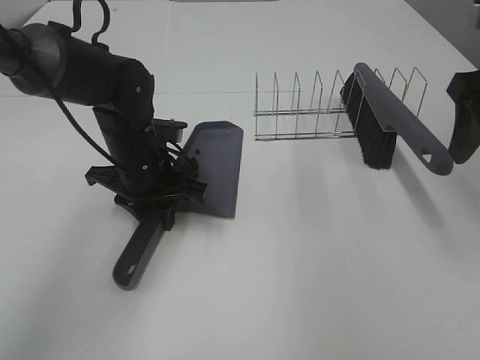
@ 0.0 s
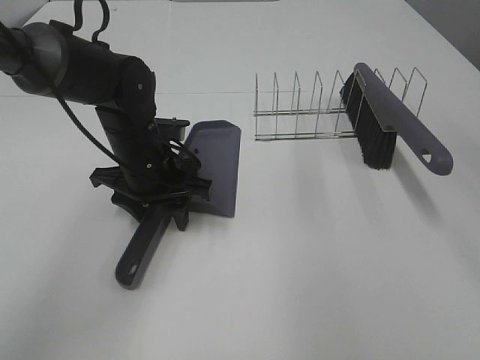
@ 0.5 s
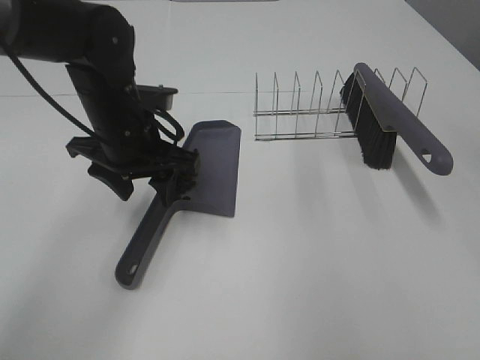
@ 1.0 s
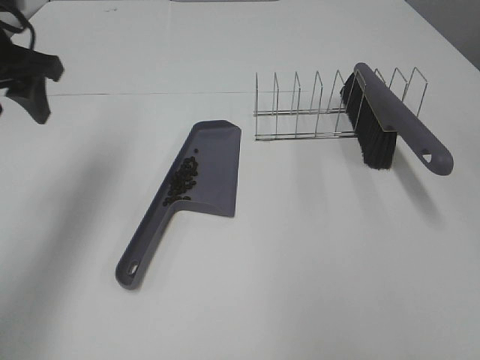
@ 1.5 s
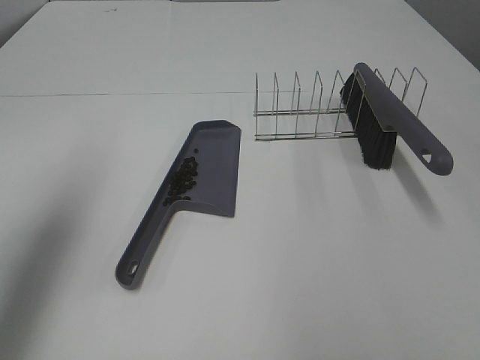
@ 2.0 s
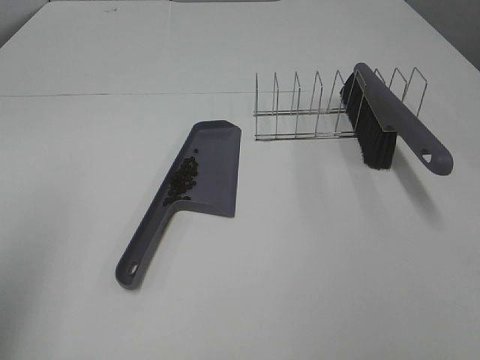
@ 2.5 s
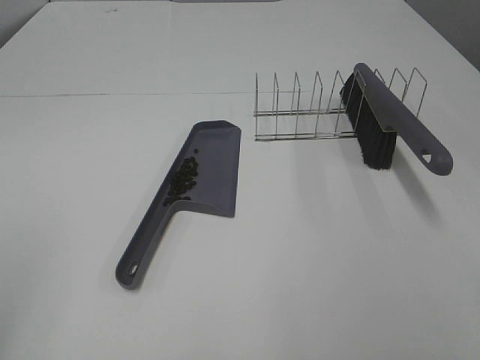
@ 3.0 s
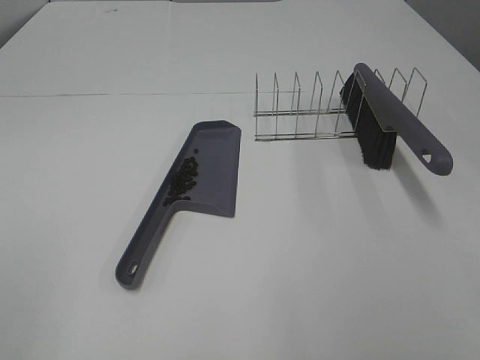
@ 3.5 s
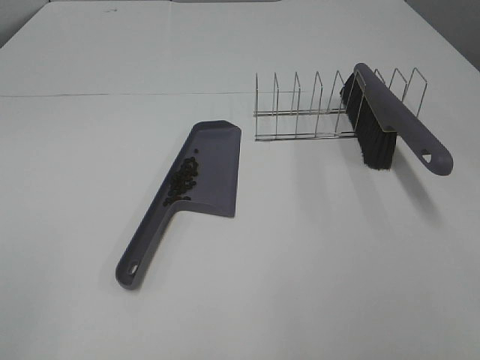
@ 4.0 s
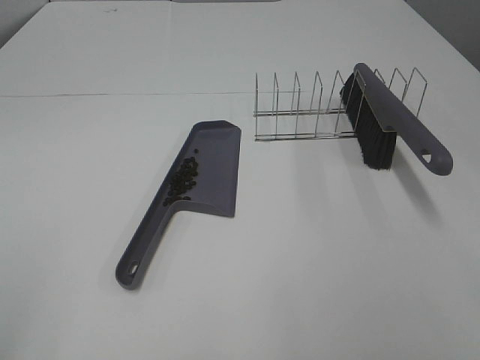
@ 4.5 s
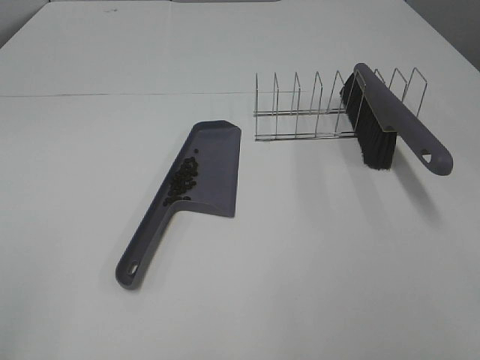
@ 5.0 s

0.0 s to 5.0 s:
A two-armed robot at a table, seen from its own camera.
Task of the whole recording: Sweep Coffee Bean.
0.0 to 2.5 s: The left gripper shifts roughly 40 cm backward, upward and to the left, and opens its fingers. The right gripper travels backward by some 25 cm.
2.5 to 5.0 s: The left gripper shifts some 10 cm backward.

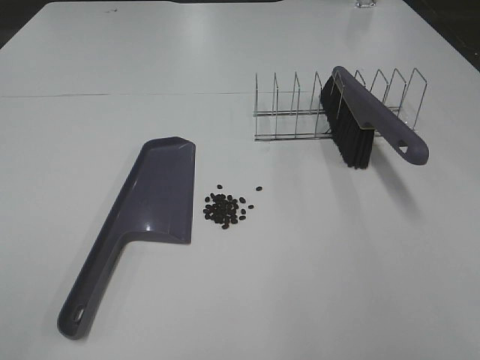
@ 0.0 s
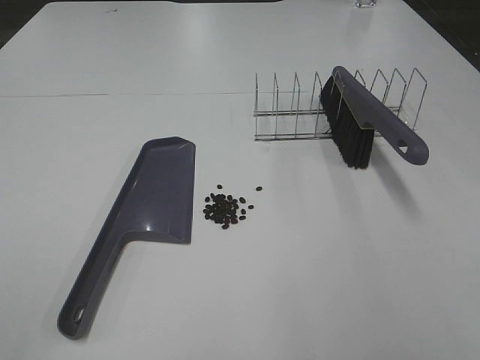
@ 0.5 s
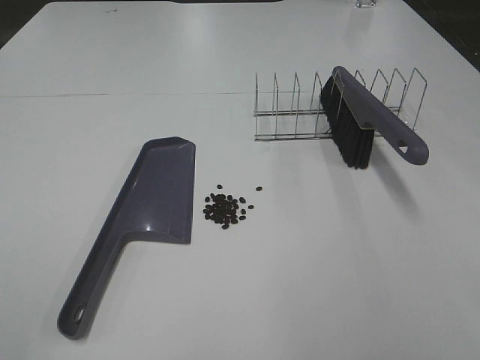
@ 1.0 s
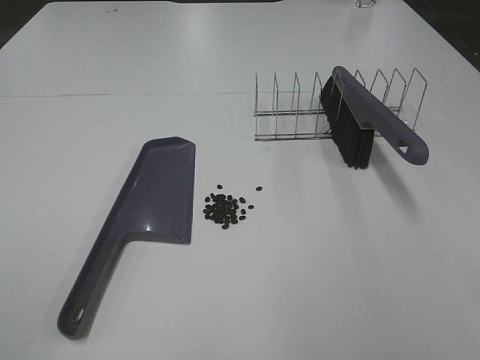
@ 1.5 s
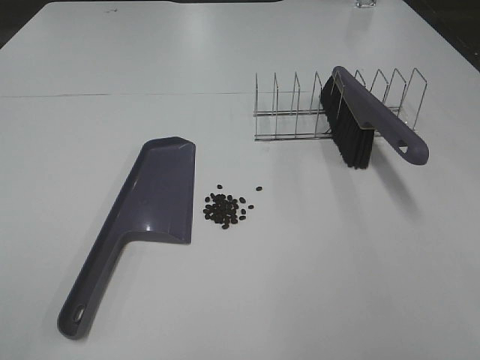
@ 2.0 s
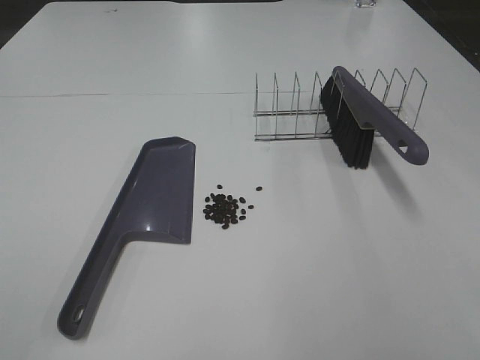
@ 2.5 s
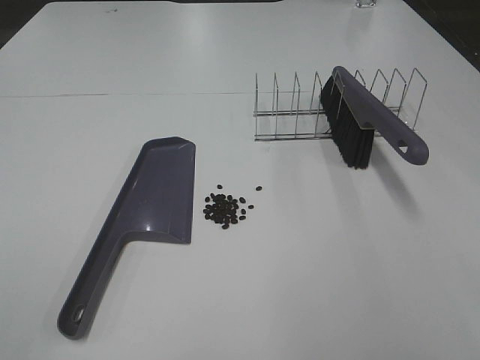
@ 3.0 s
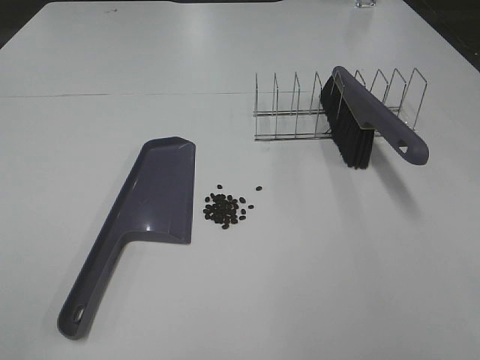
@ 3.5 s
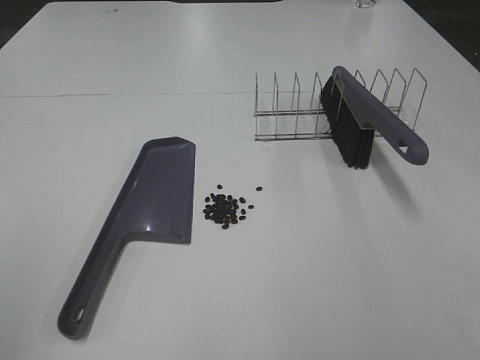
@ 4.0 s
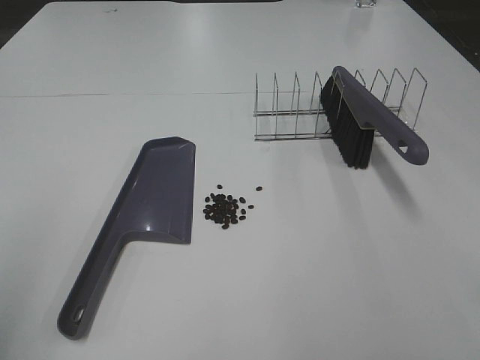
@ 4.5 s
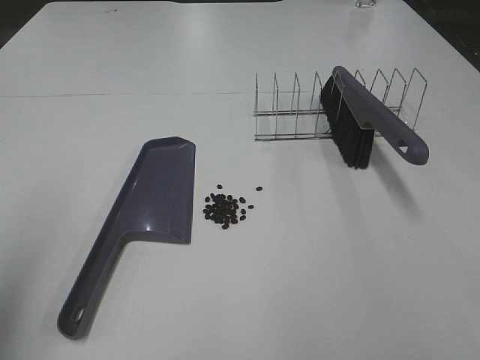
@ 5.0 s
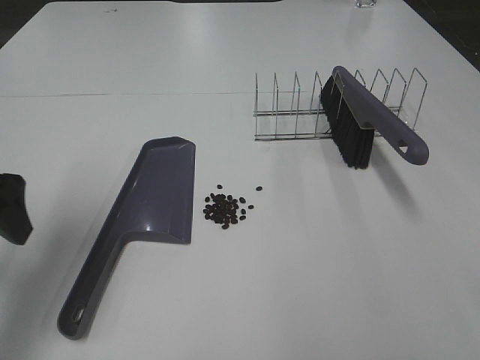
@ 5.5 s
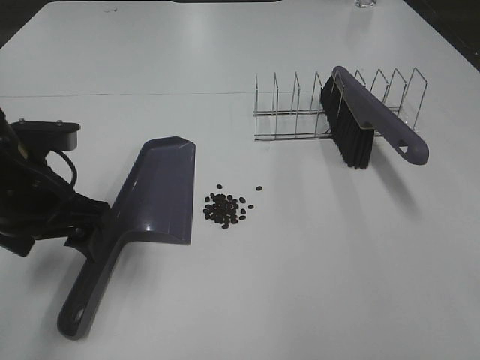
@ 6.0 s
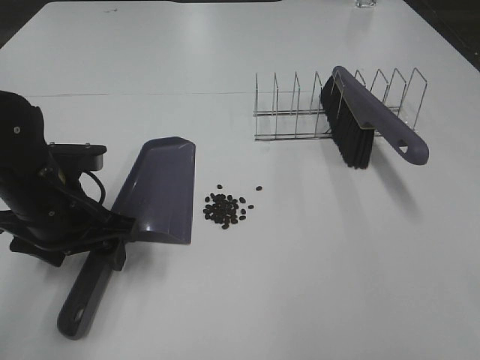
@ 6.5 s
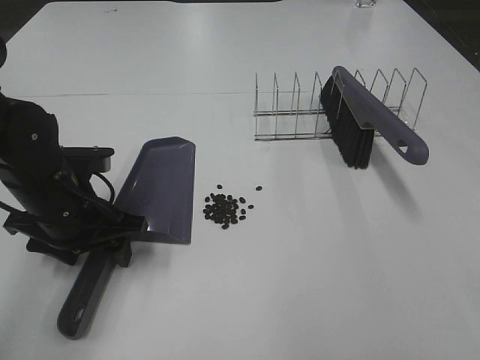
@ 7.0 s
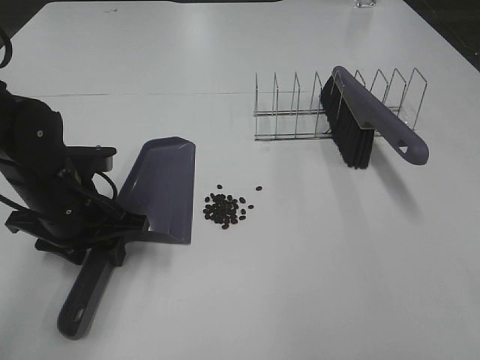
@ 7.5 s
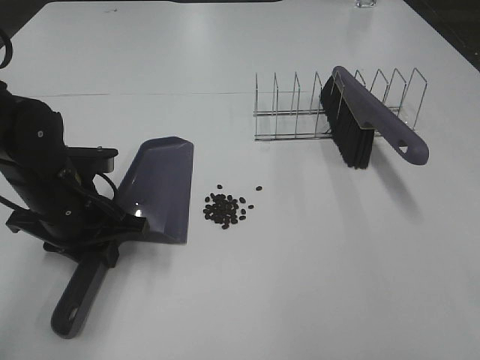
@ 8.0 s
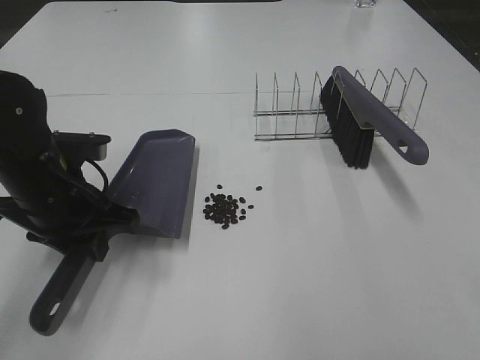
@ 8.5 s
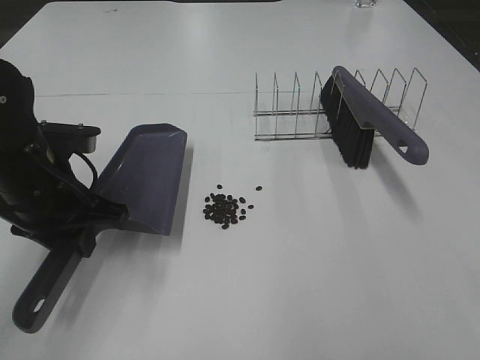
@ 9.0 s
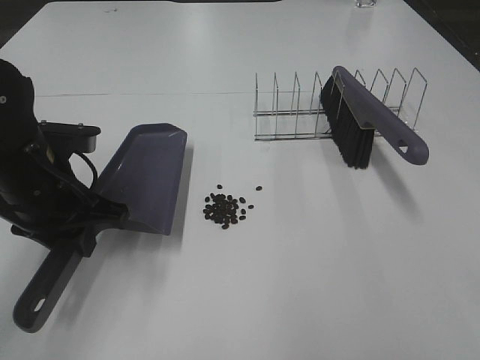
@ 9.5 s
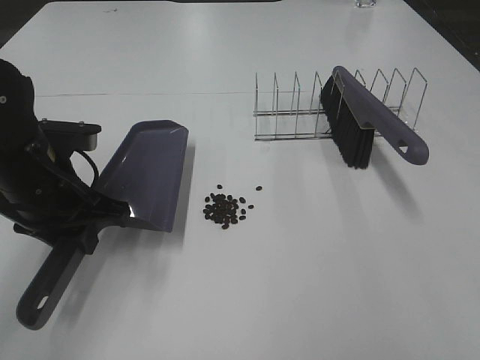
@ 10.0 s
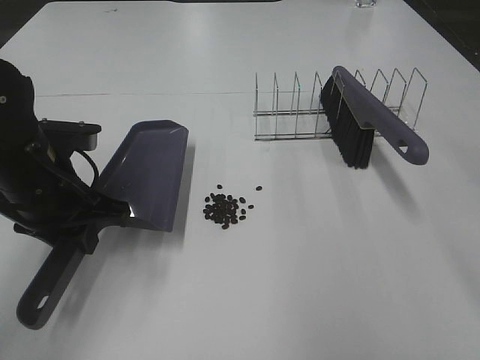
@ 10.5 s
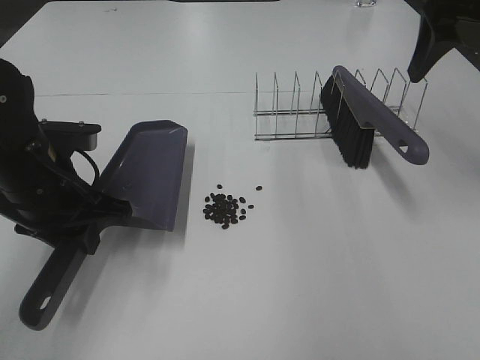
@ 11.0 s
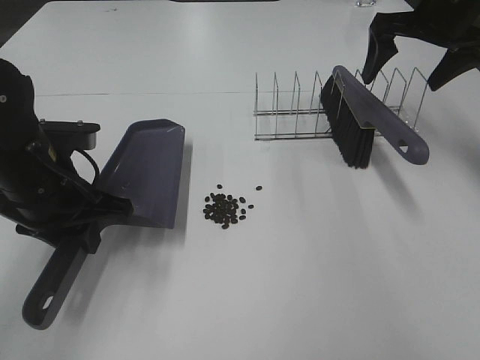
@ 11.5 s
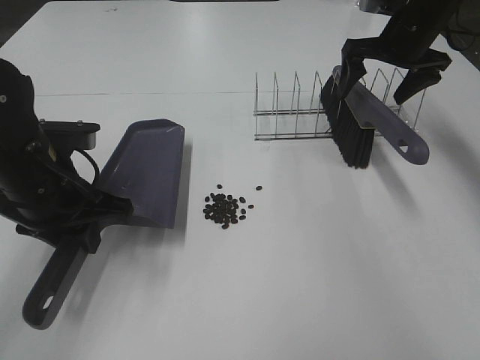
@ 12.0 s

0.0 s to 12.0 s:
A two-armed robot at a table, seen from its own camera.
Task of the whole recording: Sweep Coffee Bean.
Step, 0.0 to 7.5 s: Left hand: grab the dustpan.
4.0 to 6.0 s: The left gripper moves forward, downward and to the right, some 30 cm.
6.0 to 8.0 s: The left gripper goes roughly 5 cm downward, and closes its fingers.
8.0 to 10.0 s: The left gripper moves roughly 5 cm; the right gripper moves roughly 5 cm.
10.0 to 12.0 s: The right gripper travels forward by about 50 cm.

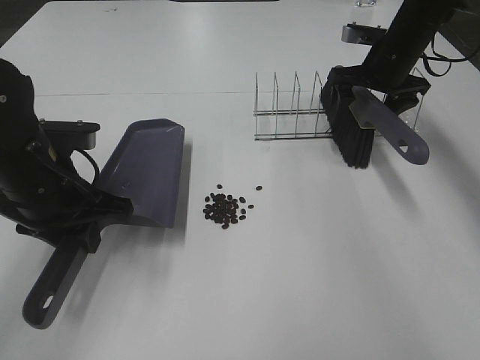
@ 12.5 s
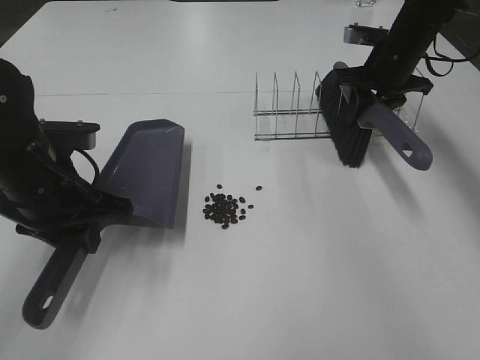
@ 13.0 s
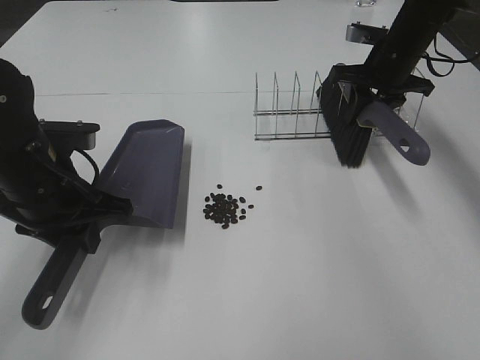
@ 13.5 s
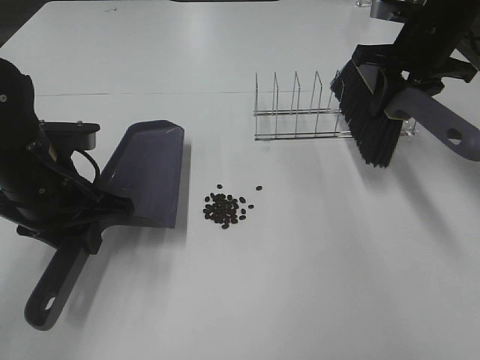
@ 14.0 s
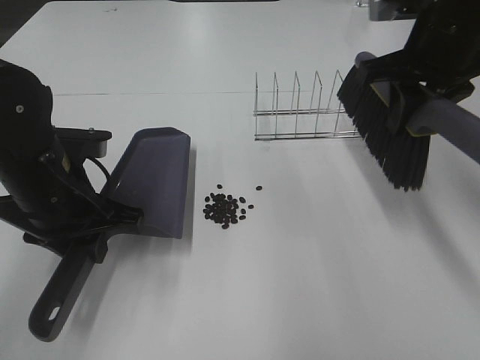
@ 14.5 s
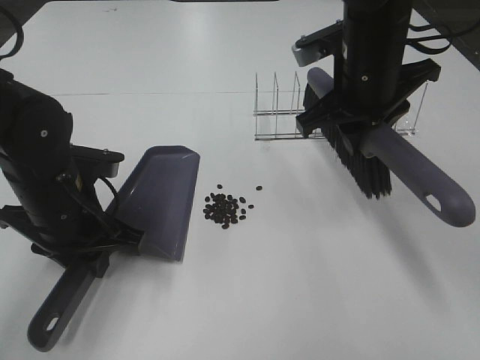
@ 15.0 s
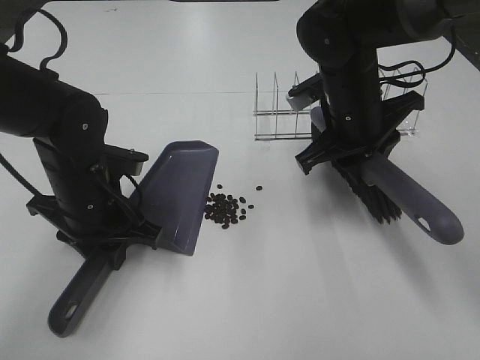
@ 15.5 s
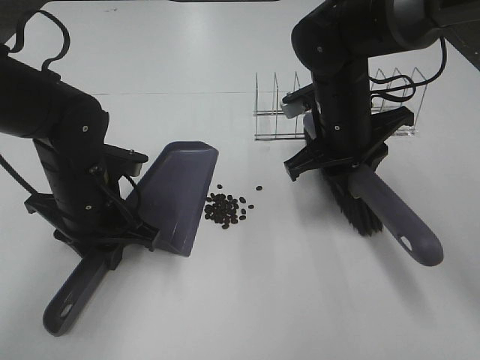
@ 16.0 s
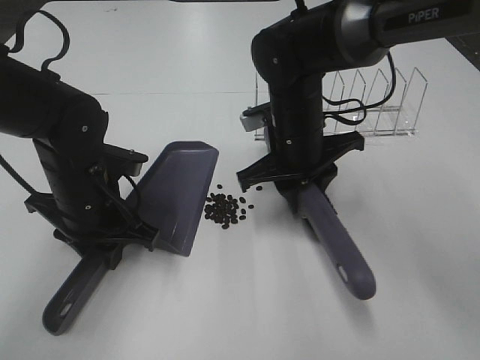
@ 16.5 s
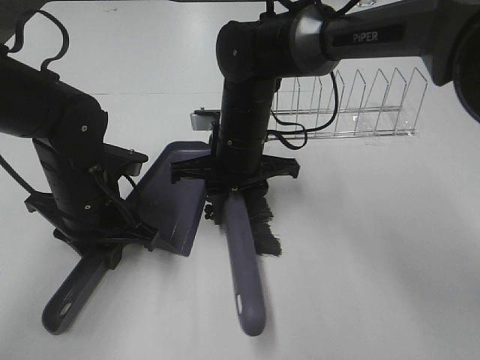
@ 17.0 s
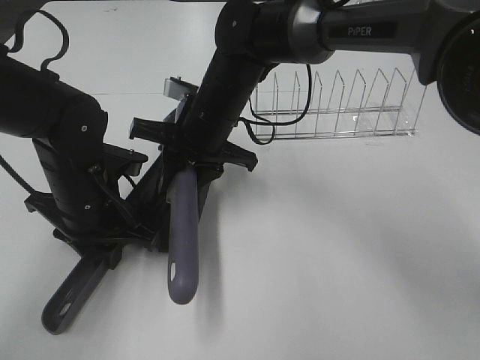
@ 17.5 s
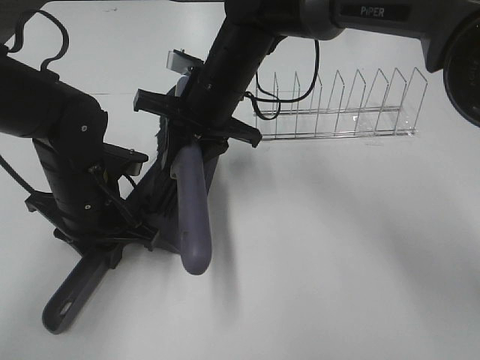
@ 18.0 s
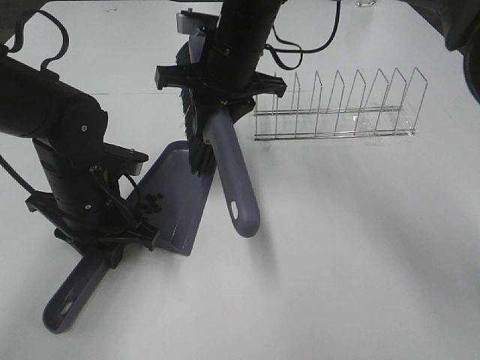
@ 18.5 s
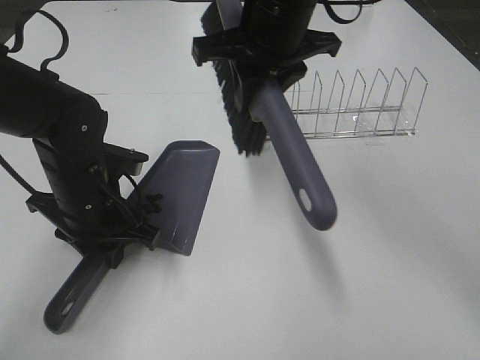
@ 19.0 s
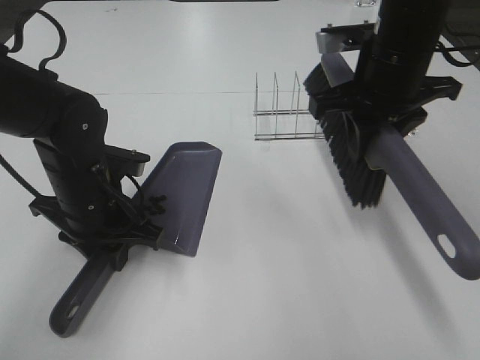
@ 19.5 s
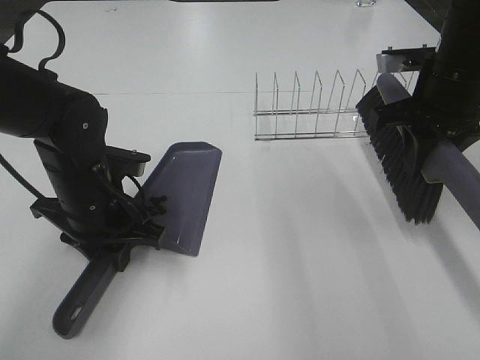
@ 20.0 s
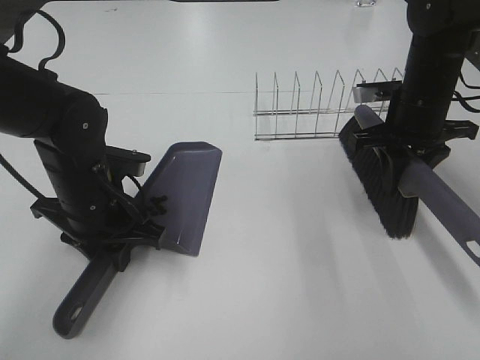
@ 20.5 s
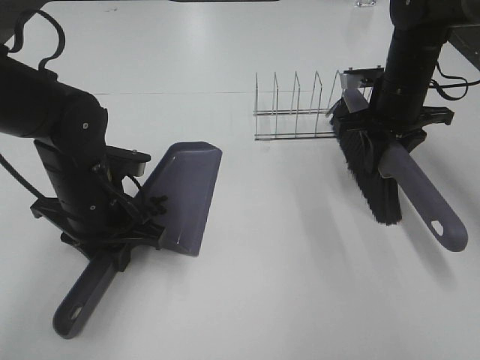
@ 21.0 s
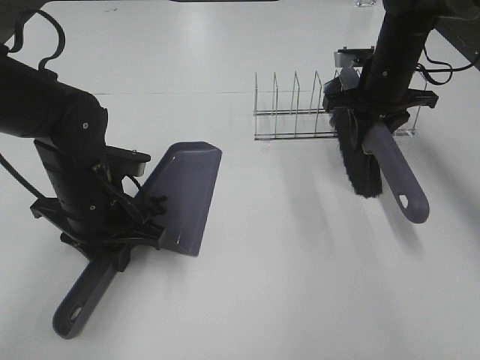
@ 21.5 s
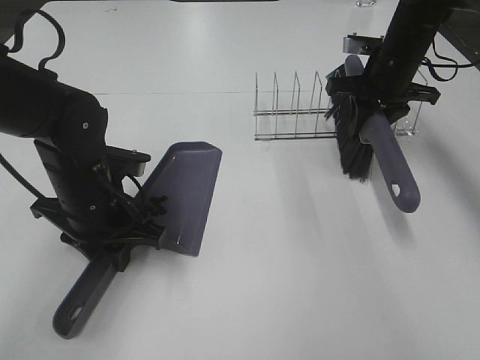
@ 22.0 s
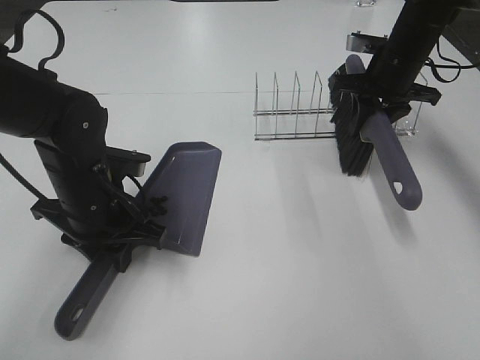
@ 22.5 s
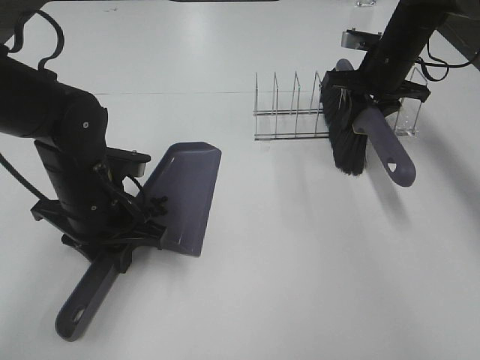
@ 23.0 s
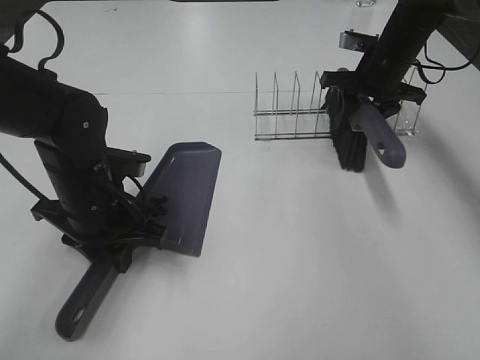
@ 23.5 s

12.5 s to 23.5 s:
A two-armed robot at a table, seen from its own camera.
Task of the whole recording: Sweep Coffee Bean.
Step, 12.5 to 16.0 s: Left hand: move the dustpan to the left side of the coffee beans.
Step, 13.0 to 18.0 s: Right hand:sweep the coffee beans into the dustpan.
12.5 to 14.5 s: The right gripper travels backward and upward by some 15 cm, and closes.
14.5 to 16.0 s: The left gripper ends up some 5 cm from where it was. Meanwhile the right gripper travels downward and to the left by approximately 15 cm.
16.0 to 18.0 s: The right gripper heads to the left, covering approximately 15 cm.
18.0 to 20.0 s: The right gripper moves to the right, approximately 25 cm.
20.0 to 21.5 s: The right gripper travels forward and downward by roughly 10 cm.
21.5 to 23.5 s: The grippers stay close to where they were, moving slightly.
